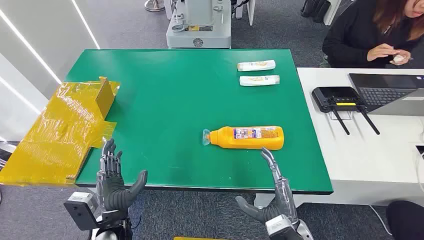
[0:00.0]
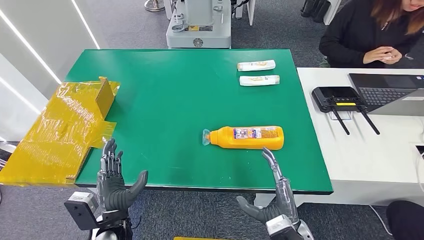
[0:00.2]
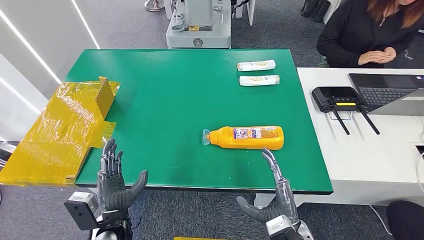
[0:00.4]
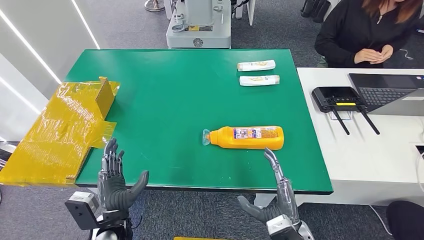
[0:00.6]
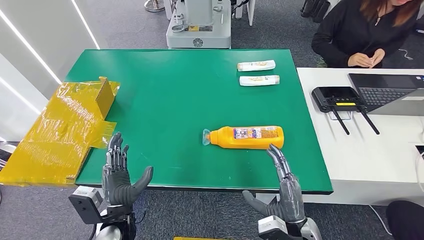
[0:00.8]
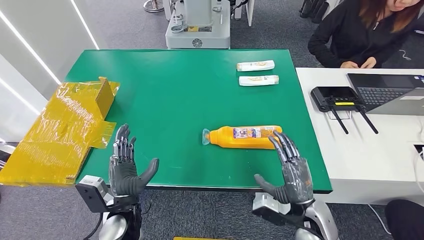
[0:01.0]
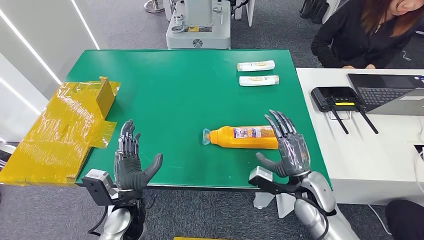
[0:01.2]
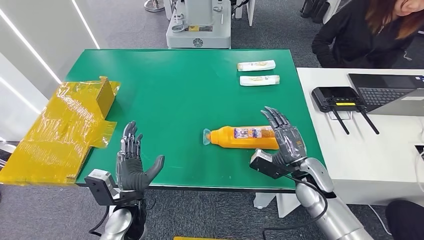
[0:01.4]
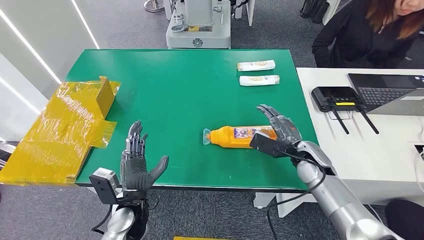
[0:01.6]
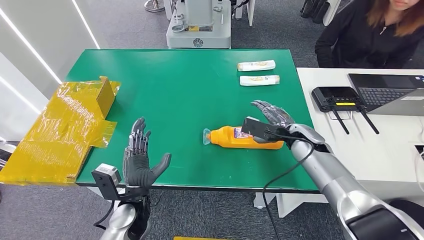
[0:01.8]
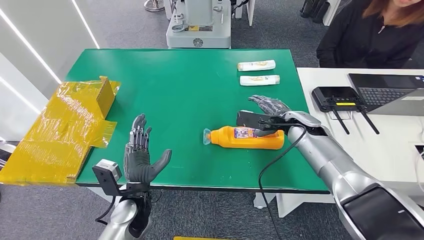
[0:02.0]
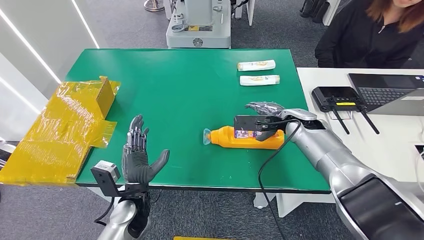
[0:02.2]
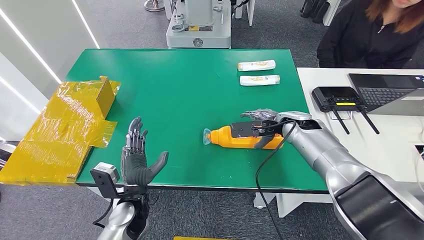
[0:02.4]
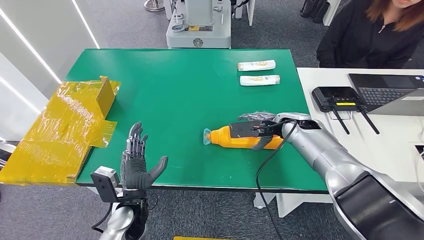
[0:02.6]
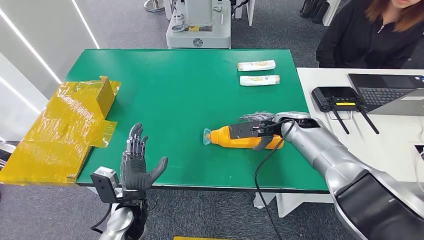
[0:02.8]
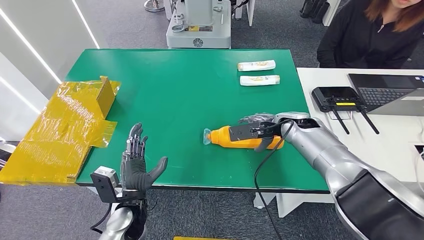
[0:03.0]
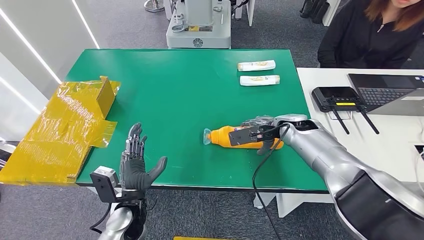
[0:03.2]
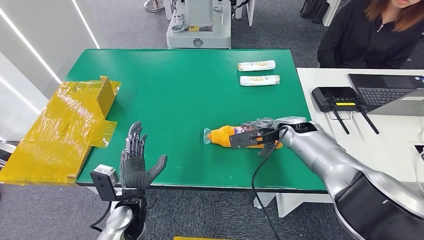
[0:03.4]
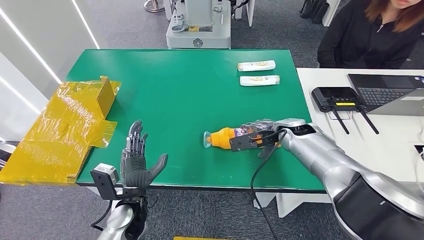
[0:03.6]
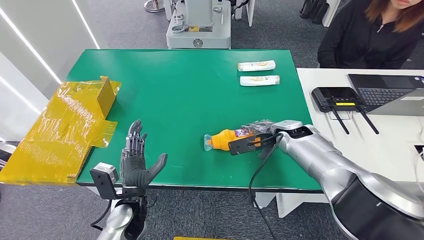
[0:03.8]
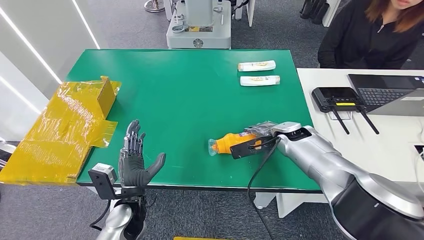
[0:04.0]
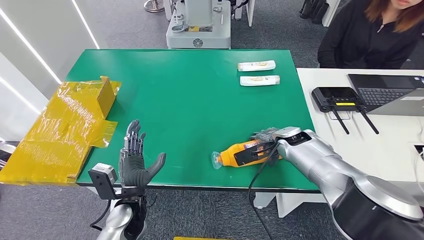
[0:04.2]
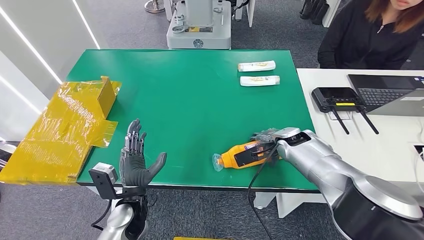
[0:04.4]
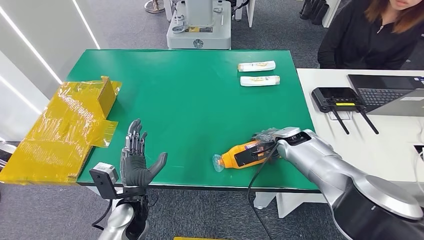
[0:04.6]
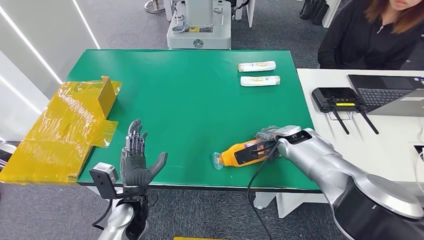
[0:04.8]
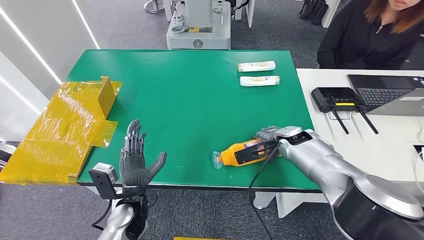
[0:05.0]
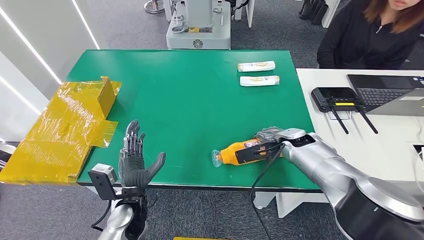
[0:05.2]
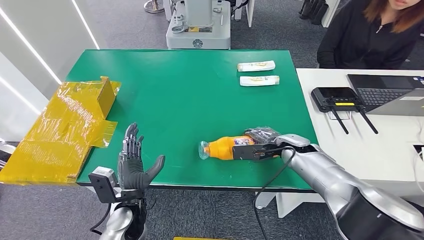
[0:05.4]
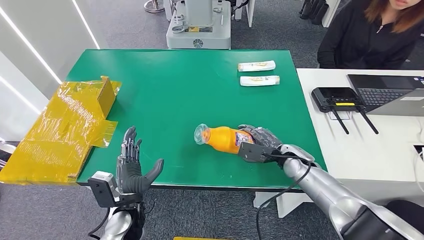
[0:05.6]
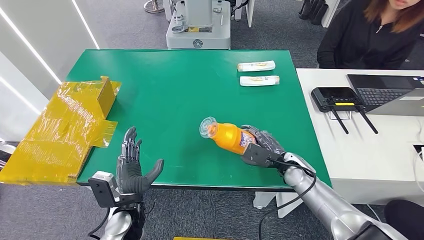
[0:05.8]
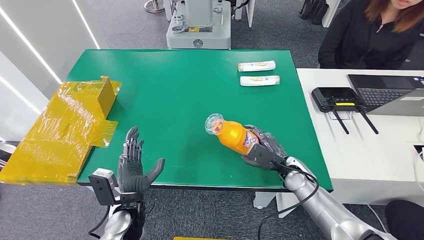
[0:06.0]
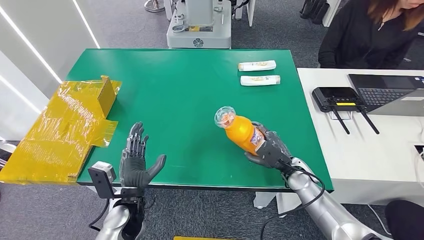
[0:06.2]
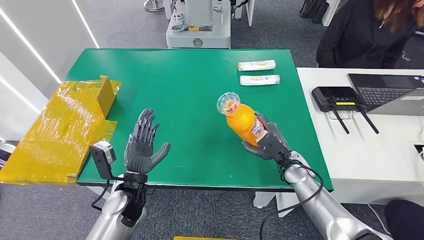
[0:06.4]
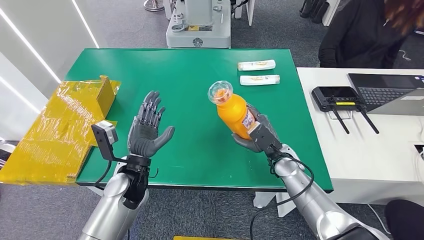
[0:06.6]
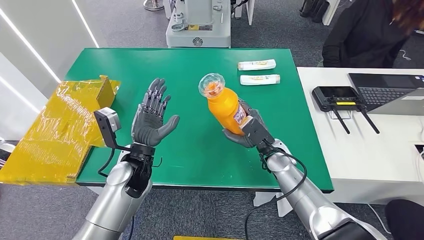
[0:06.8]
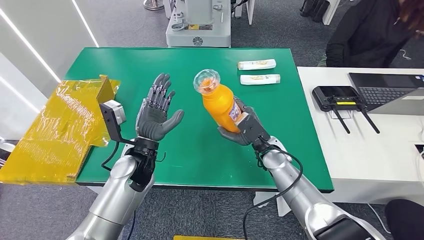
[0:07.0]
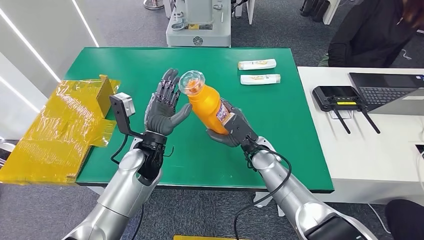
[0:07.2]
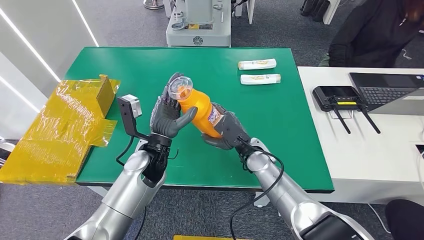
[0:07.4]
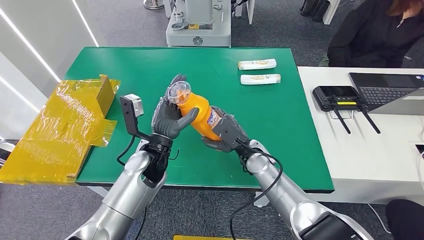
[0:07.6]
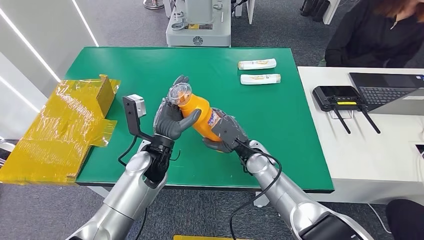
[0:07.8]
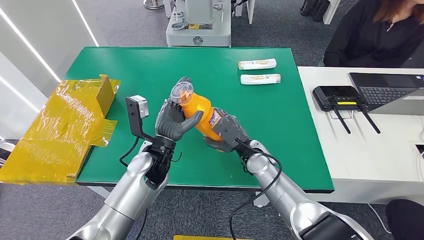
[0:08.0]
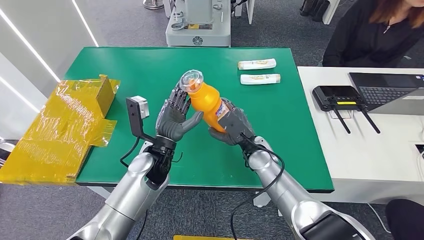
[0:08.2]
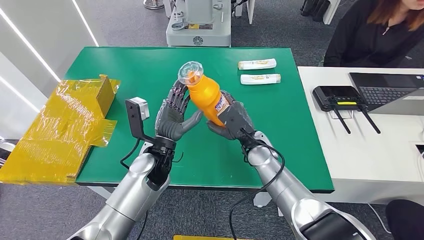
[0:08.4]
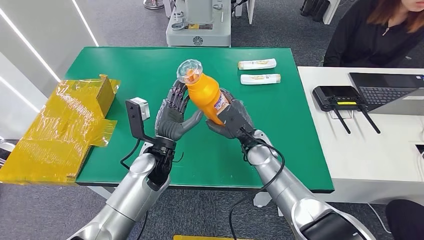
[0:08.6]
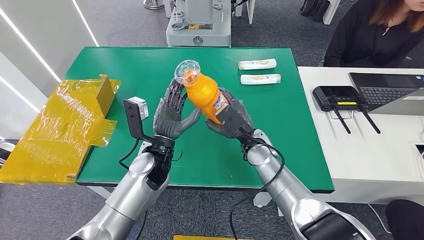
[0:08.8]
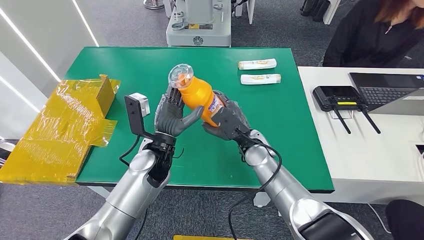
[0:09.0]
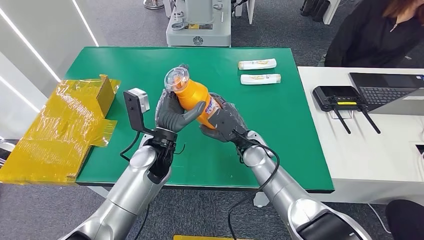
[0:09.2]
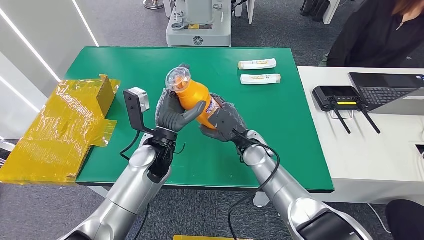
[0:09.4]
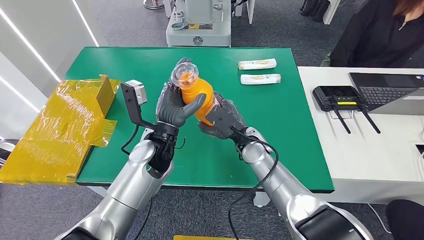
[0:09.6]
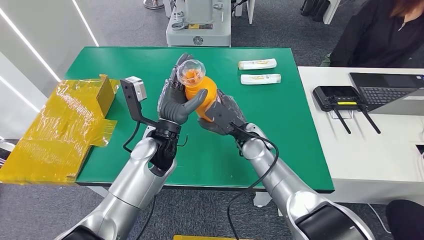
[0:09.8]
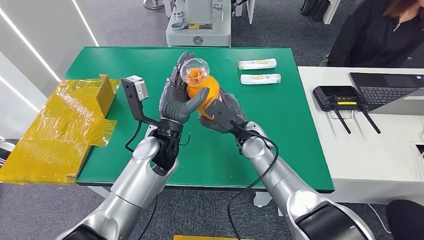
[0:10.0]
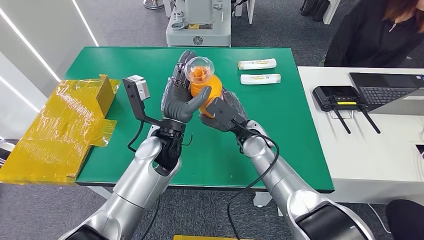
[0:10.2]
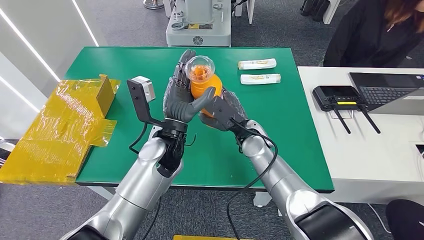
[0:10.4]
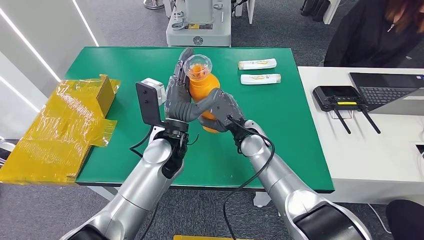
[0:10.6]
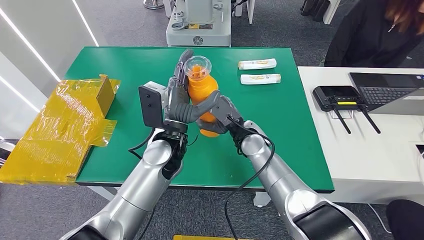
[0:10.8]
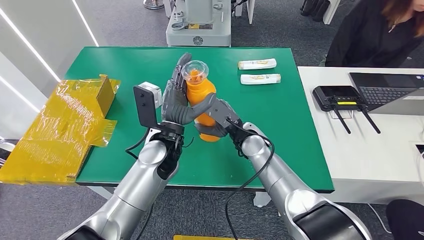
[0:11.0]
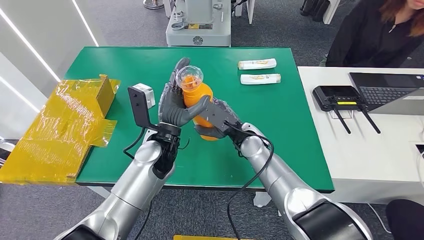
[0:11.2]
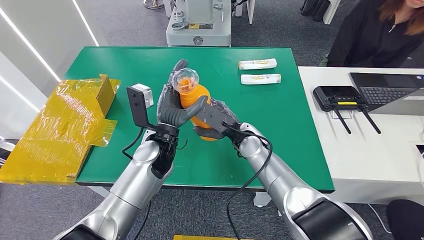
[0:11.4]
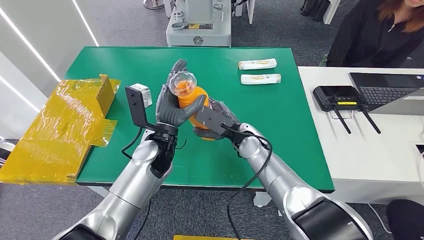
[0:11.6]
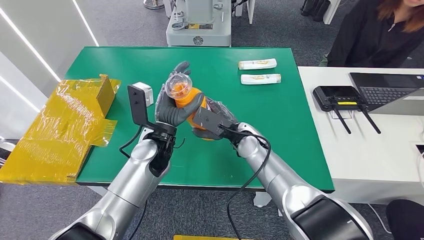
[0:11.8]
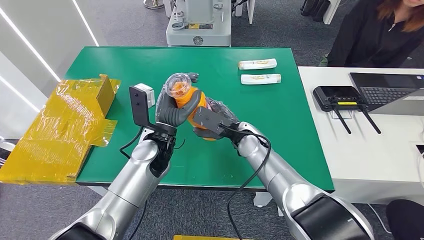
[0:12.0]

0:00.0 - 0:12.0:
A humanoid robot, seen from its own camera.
Step, 0:00.0 - 0:06.4: Pick up the bottle from the table.
0:01.6 - 0:03.0: The right hand moves forward and upward, some 10 cm.
0:03.0 - 0:04.4: The right hand moves approximately 5 cm.
0:04.4 - 0:06.0: The right hand is displaced downward and backward by some 10 cm.
0:07.6 - 0:09.0: The hands stay close to where they were, moving slightly.
0:09.0 - 0:10.4: The left hand ends up about 5 cm from where it was.
0:10.4 - 0:12.0: The left hand shifts by about 5 cm.

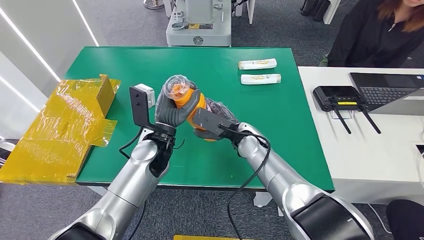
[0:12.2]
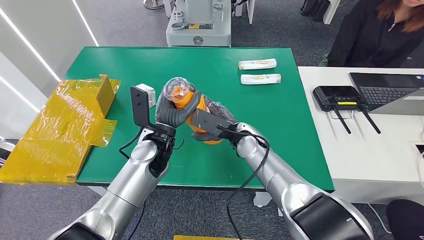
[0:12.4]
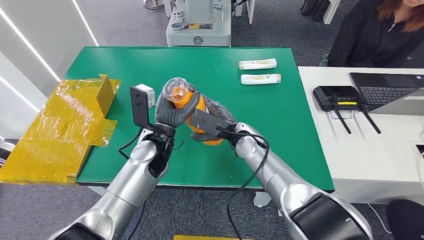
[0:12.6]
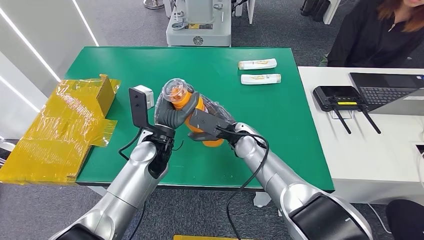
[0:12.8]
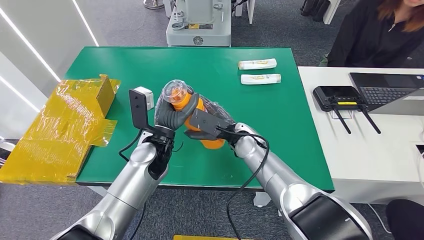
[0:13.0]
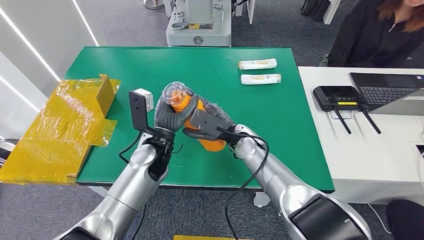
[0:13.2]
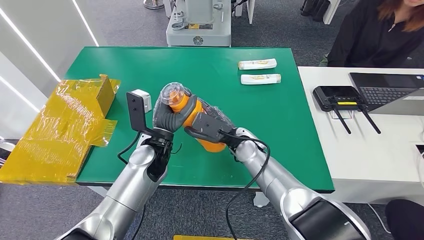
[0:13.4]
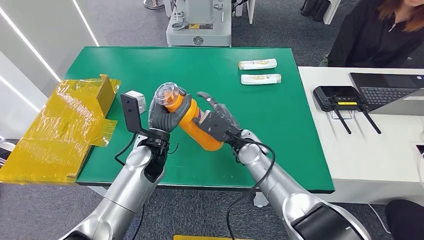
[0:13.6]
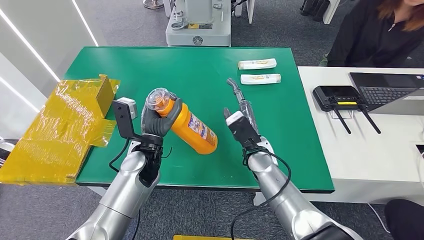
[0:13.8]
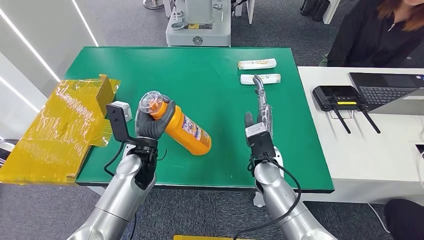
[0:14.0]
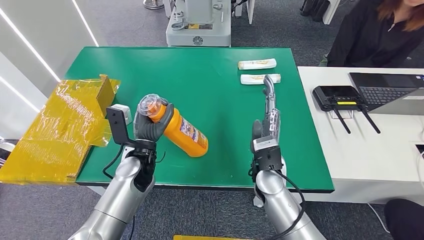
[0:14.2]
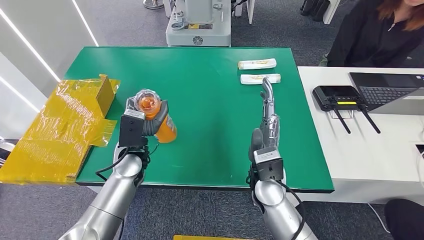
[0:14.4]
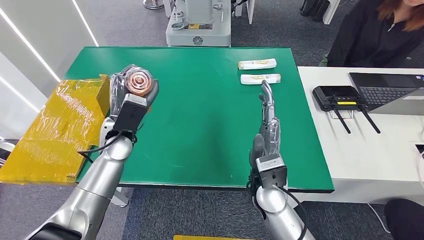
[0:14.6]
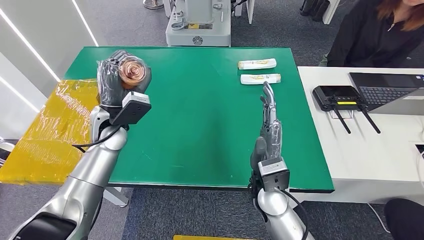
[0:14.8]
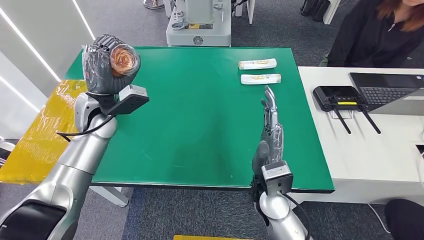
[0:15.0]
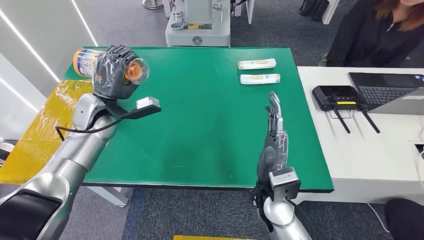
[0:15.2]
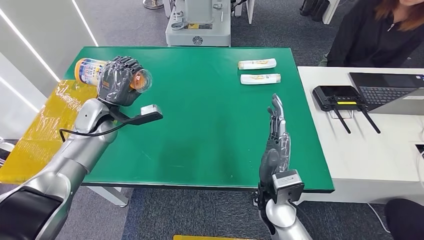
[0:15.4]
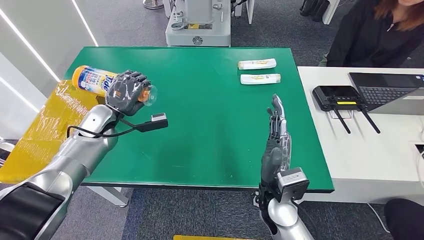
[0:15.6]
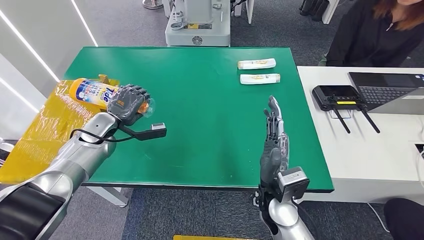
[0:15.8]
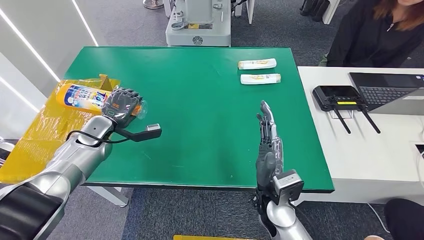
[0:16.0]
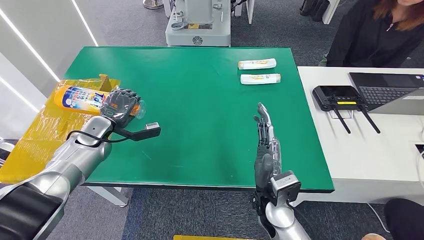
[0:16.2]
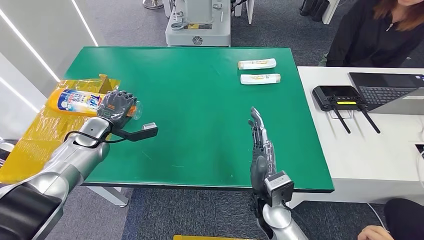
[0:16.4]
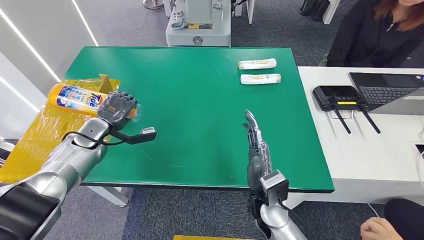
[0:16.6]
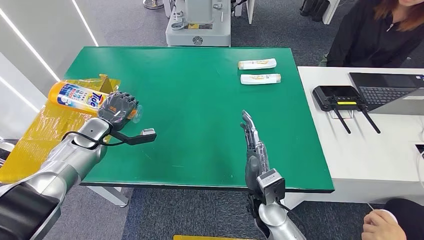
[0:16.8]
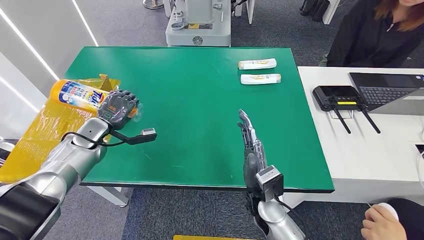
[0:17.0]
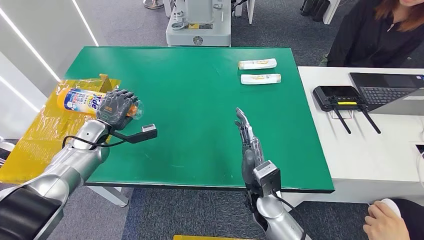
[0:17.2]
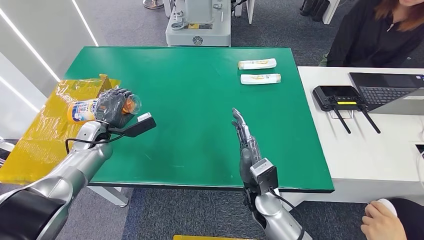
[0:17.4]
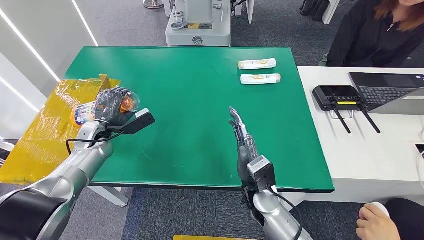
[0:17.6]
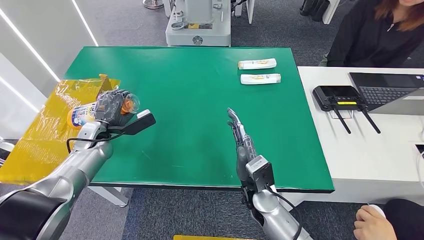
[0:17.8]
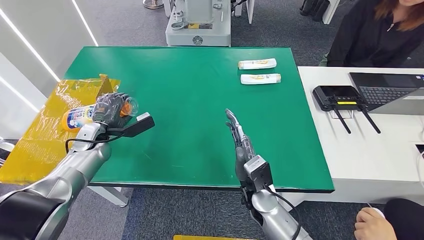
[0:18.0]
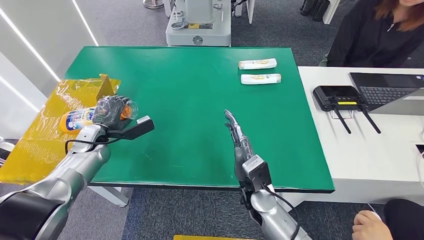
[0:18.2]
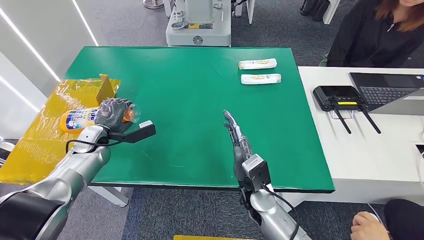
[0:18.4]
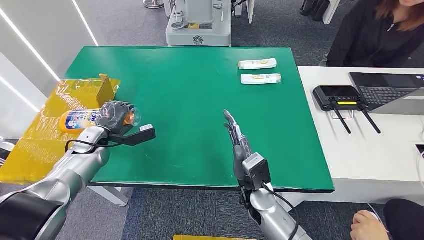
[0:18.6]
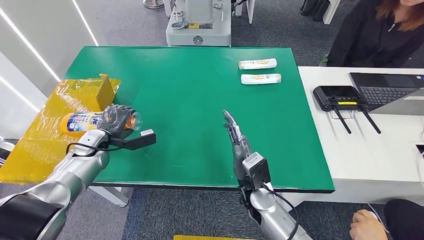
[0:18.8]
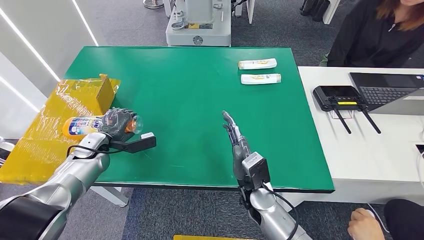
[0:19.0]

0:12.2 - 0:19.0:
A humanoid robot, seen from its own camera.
0:12.2 - 0:13.6: The hands move only a little.
0:15.0 - 0:16.2: The left hand is displaced downward and to the left by roughly 15 cm.
